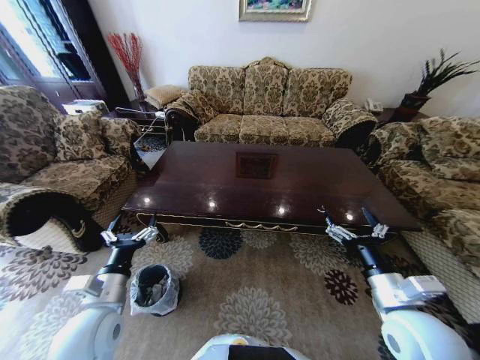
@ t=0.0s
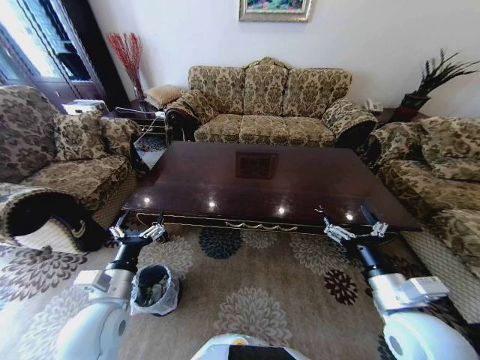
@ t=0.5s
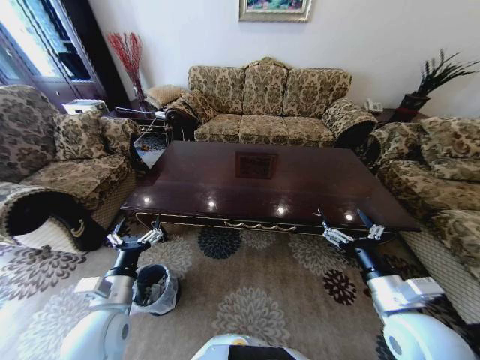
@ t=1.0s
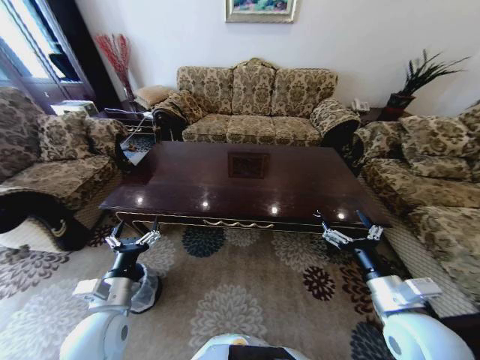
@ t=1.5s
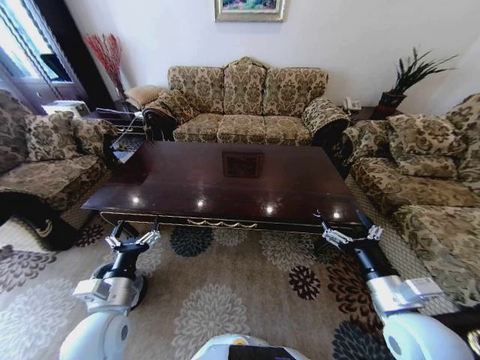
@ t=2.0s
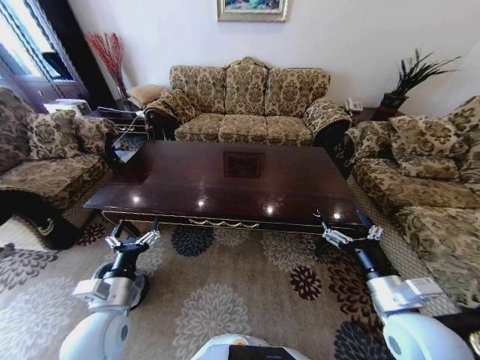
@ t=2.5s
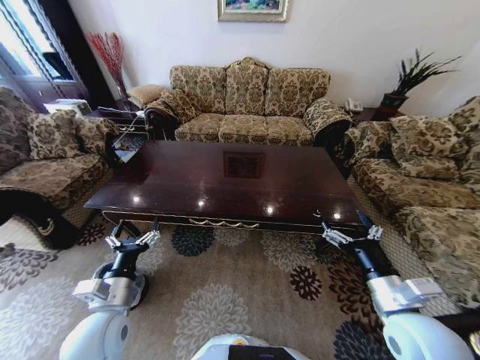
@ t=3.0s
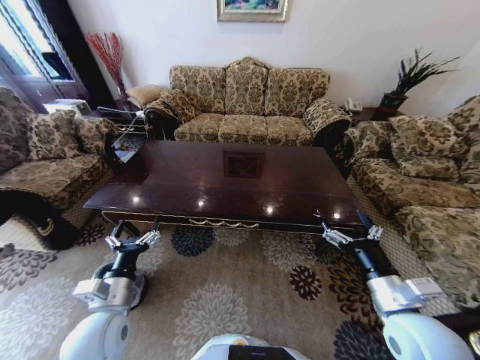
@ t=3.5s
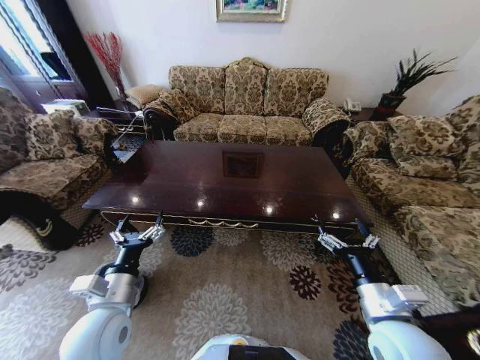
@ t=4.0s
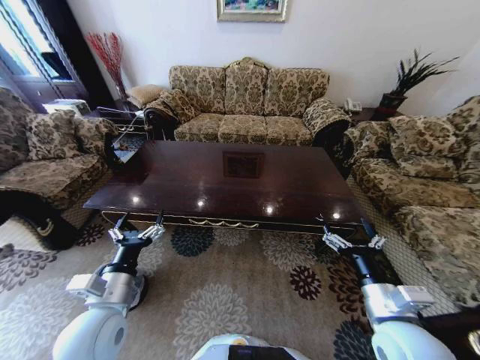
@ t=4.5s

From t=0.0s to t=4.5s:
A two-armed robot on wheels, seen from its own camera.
Task of the whole recording: Move to the front of the table and place the trash on the table into the trash bin.
From t=2.0s to t=4.5s: The grippers move only a little.

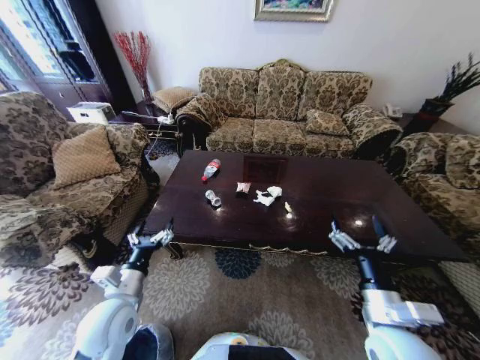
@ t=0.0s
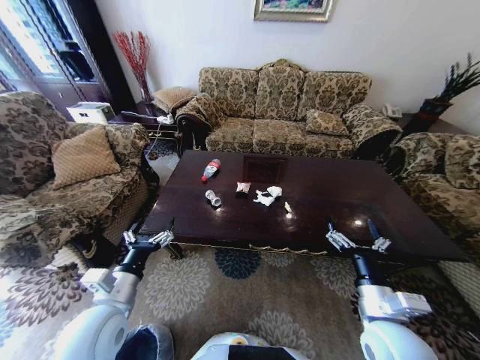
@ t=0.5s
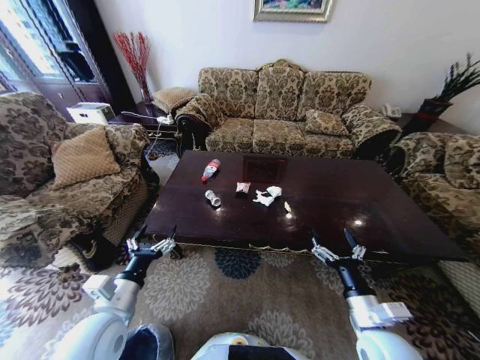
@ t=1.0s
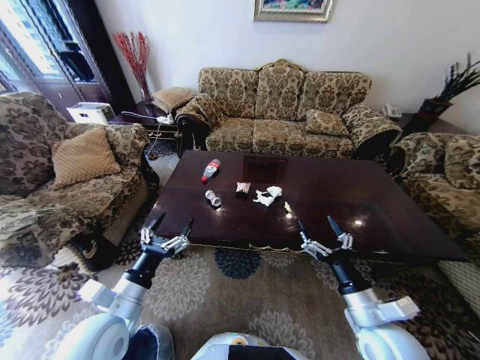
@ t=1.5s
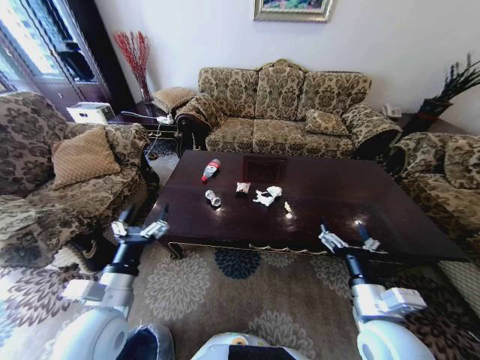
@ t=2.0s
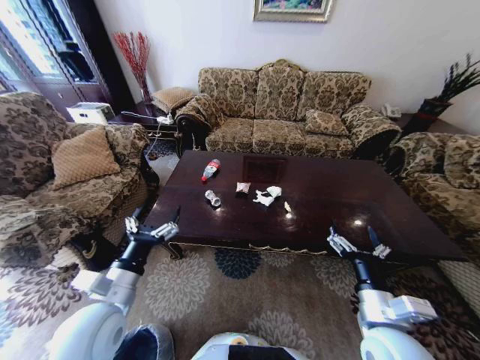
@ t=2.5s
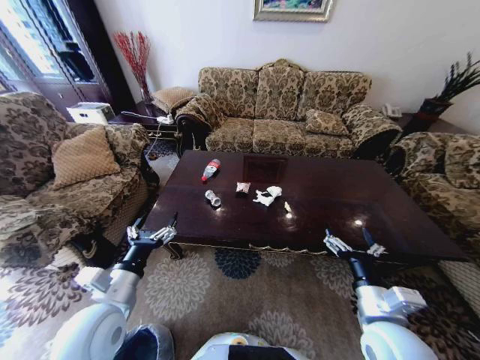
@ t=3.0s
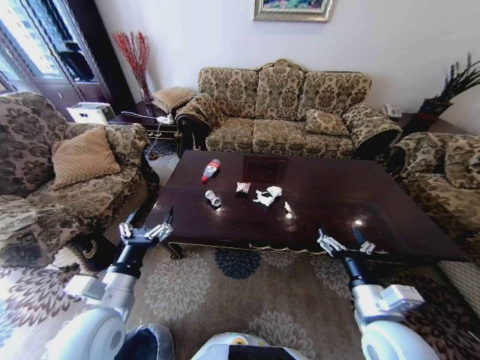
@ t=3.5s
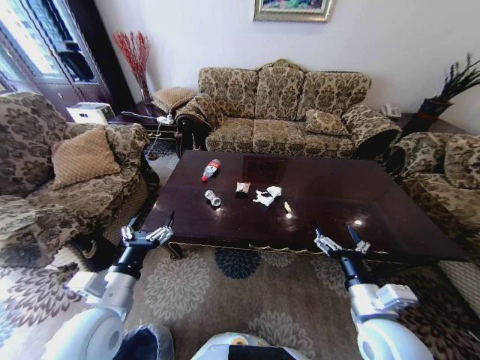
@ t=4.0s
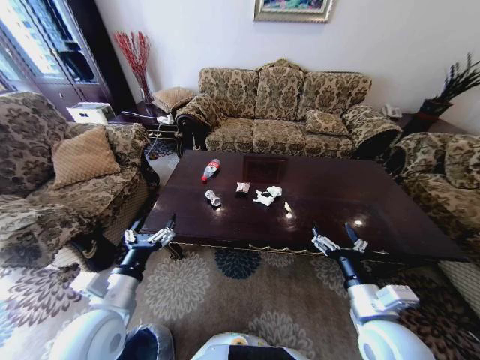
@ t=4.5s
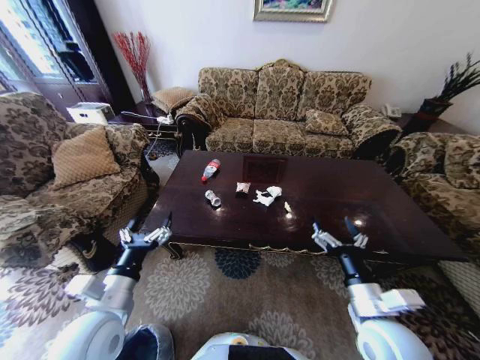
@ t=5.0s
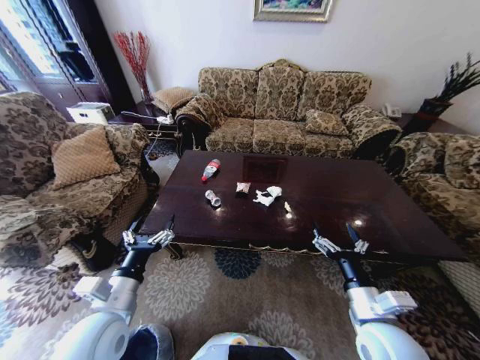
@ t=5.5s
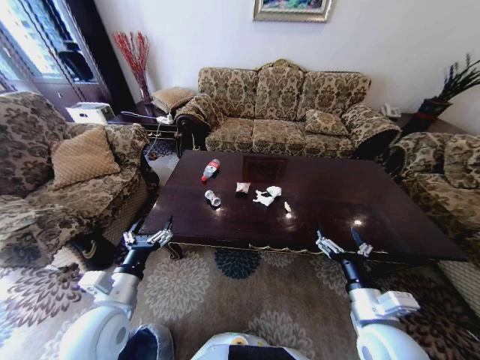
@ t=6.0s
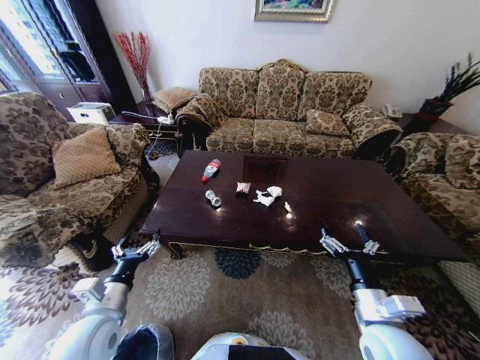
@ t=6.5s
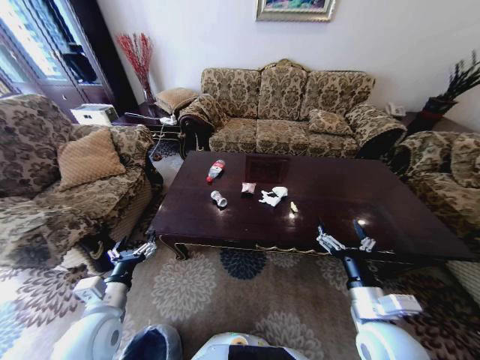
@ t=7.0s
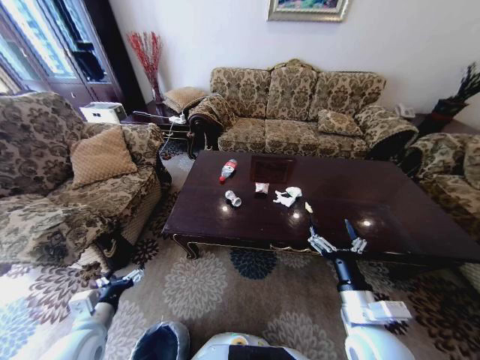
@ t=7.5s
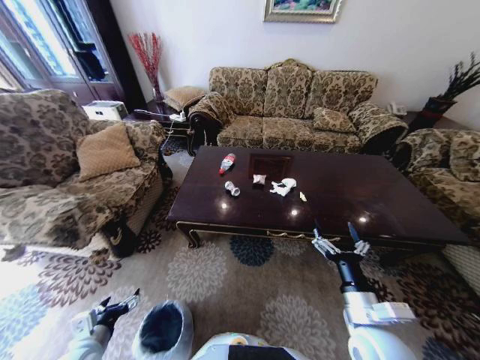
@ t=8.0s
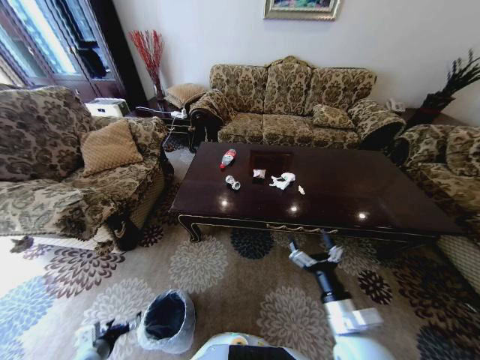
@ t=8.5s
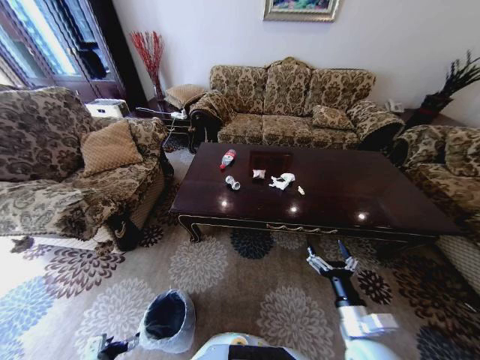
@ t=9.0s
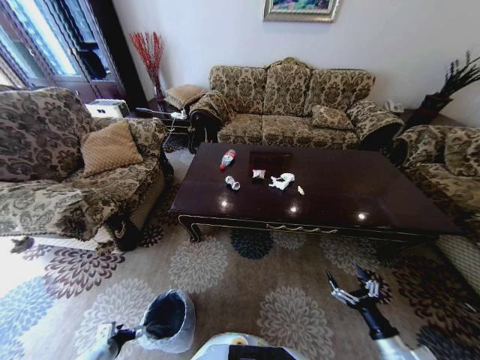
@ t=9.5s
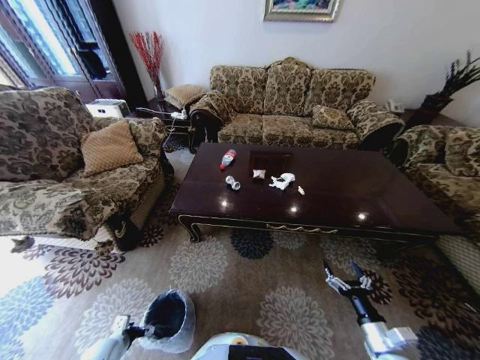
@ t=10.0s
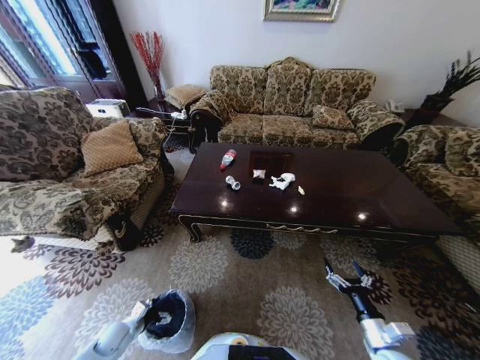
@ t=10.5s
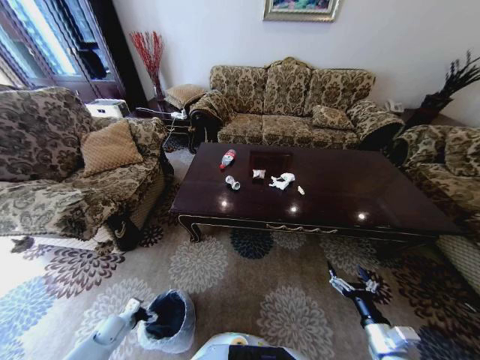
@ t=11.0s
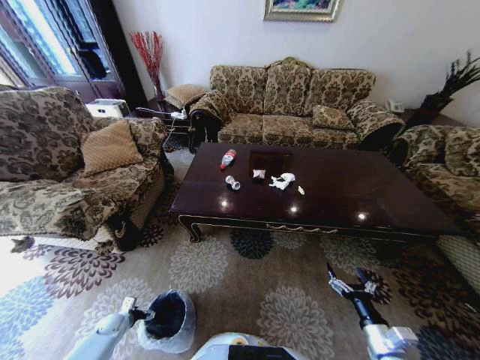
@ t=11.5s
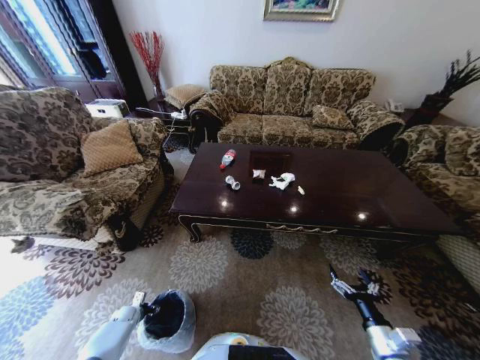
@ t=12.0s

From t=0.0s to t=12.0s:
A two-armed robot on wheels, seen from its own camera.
Task of the whole recording: Move to the front of the table and place the trash on the table into the trash bin.
From t=2.0s to t=4.0s: The grippers make only small movements.
From t=4.0s to t=6.0s: The grippers move only a little.
From t=6.0s to t=8.0s: The left gripper shifts approximately 15 cm downward, to the left and backward.
From t=8.0s to t=10.0s: The left gripper shifts some 20 cm downward. The right gripper travels downward and to the right by approximately 15 cm.
From t=10.0s to t=12.0s: The left gripper shifts roughly 15 cm forward and downward.

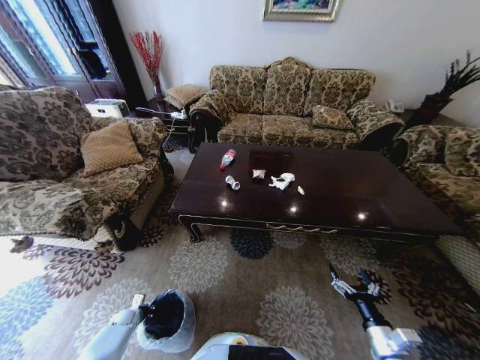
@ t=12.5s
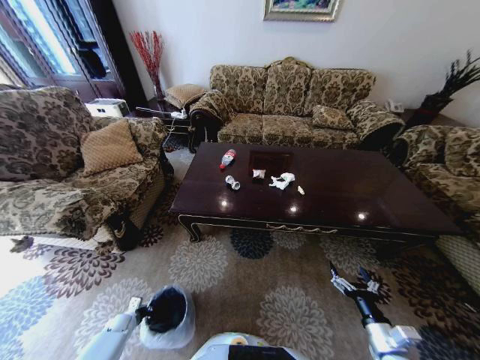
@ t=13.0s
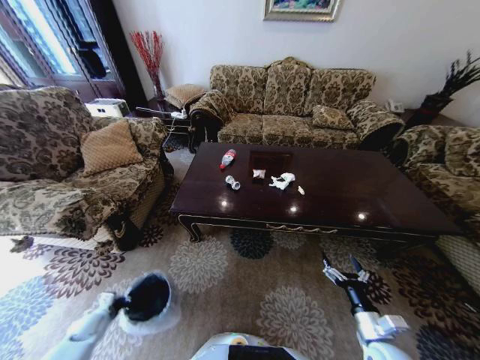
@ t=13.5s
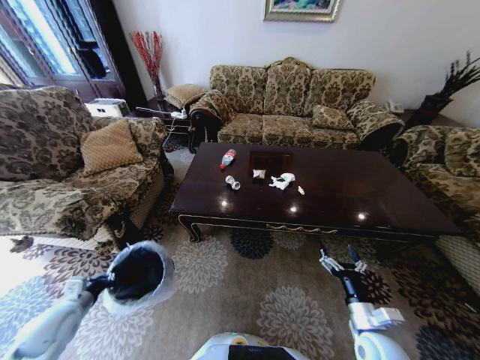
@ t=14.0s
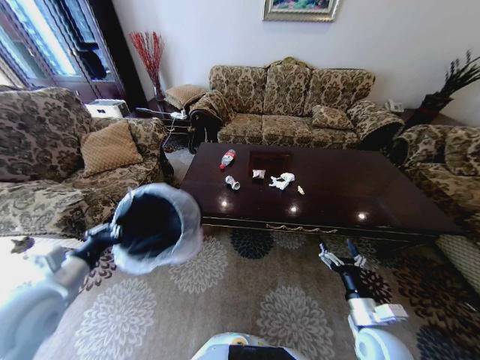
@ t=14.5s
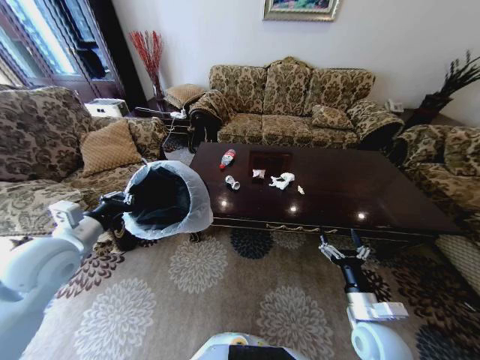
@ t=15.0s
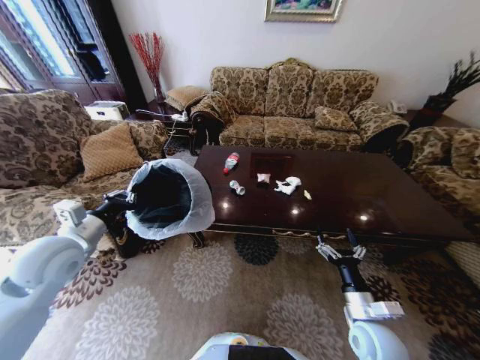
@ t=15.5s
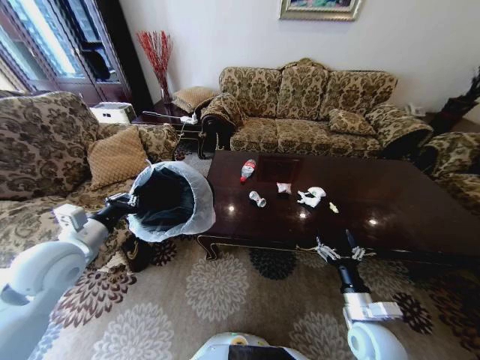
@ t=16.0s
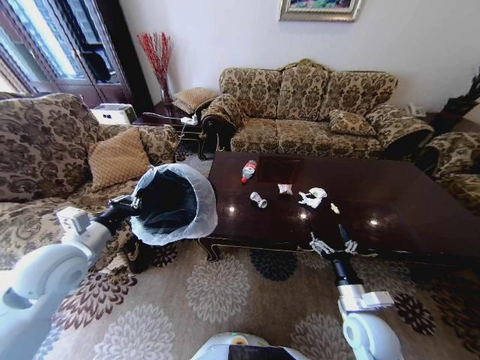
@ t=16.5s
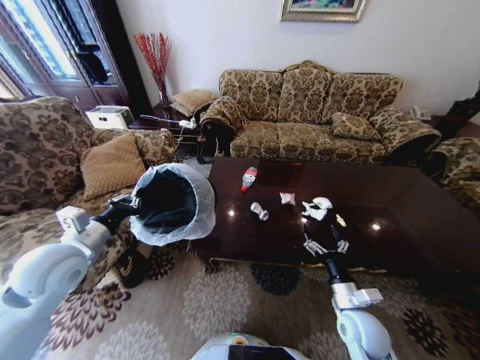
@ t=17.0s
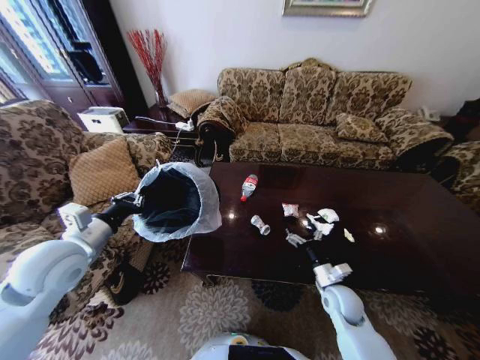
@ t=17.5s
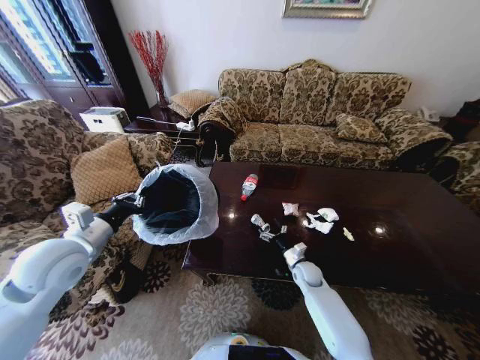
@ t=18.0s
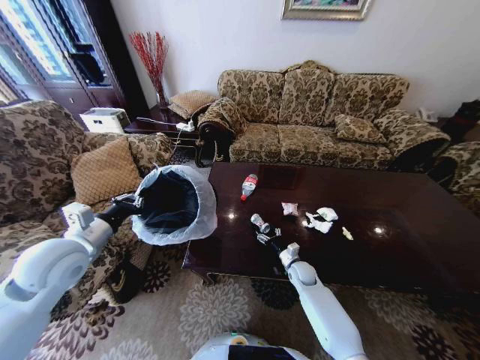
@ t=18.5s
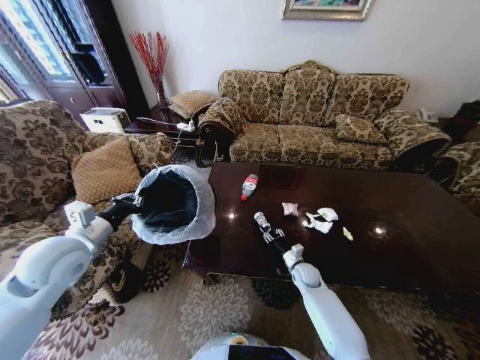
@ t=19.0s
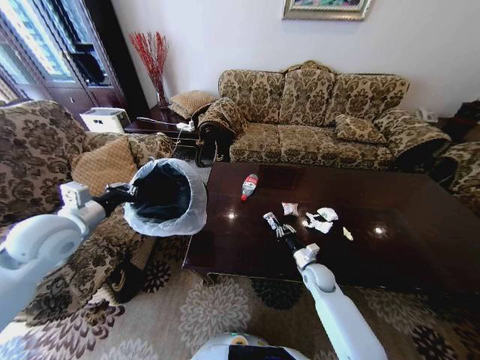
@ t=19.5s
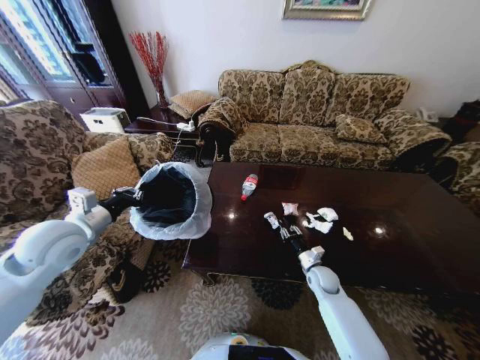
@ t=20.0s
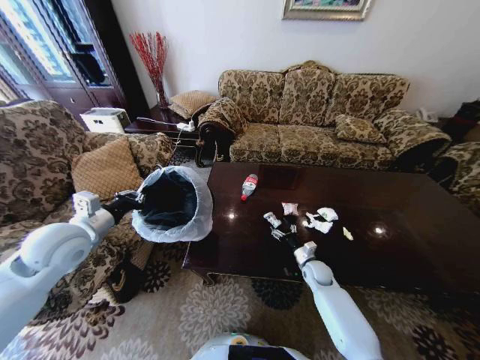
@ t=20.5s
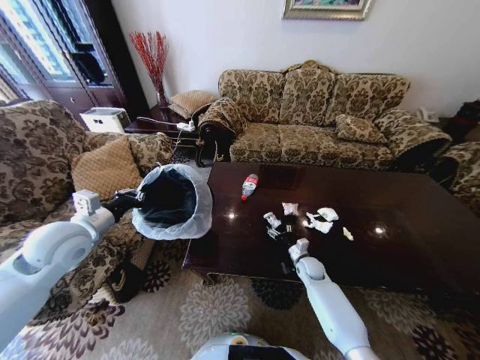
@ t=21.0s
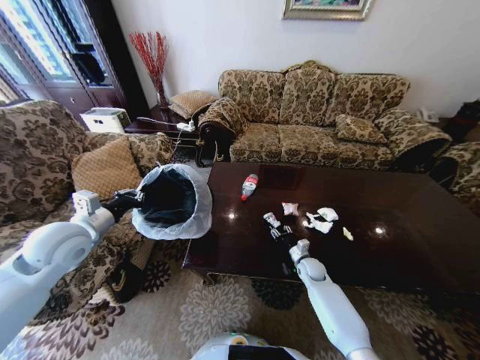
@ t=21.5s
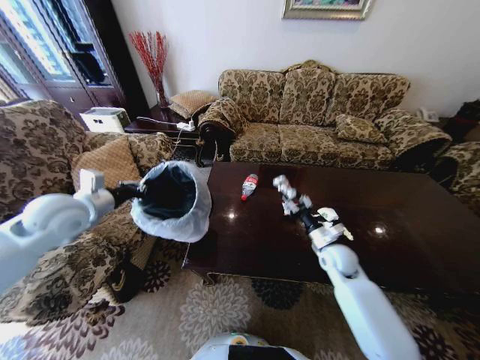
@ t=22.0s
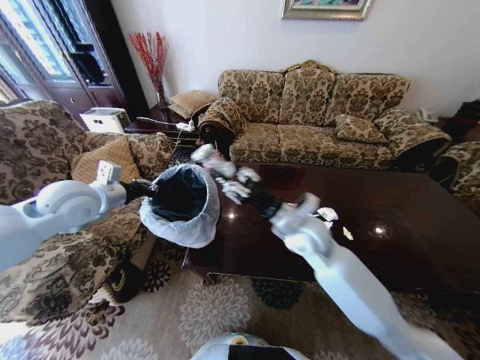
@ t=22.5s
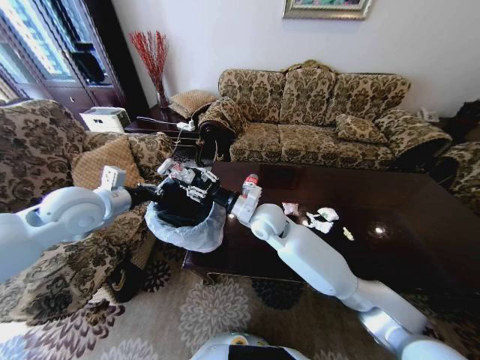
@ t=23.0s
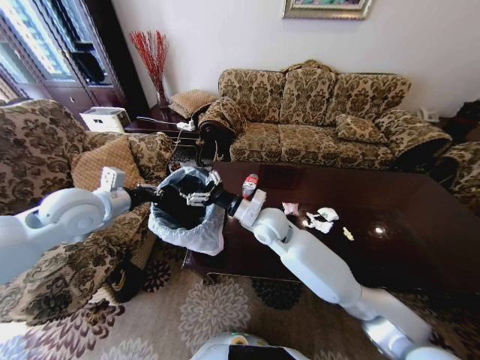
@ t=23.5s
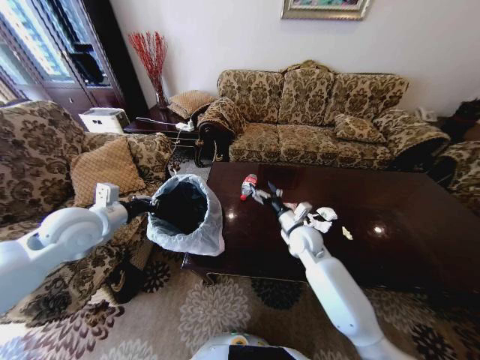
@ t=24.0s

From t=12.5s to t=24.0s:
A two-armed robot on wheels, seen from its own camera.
Task of the whole recording: Move to the front of the table and place the trash on the table into the trash bin.
From t=12.5s to t=14.5s: The left gripper moves upward, about 50 cm, while the right gripper moves to the left, upward and forward, some 10 cm.
From t=14.5s to t=16.5s: The left gripper is displaced forward by approximately 5 cm.
From t=16.5s to t=18.5s: The right gripper moves forward and downward, about 25 cm.
From t=18.5s to t=20.0s: The right gripper travels to the right by roughly 5 cm, and closes.
From t=20.0s to t=22.0s: The left gripper ends up approximately 5 cm from where it was, while the right gripper goes about 15 cm upward, and opens and closes again.
From t=22.0s to t=24.0s: The right gripper goes roughly 10 cm to the left, and opens its fingers.
